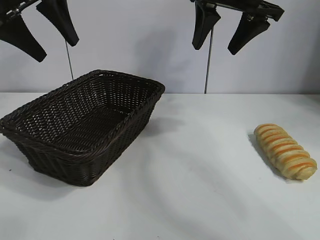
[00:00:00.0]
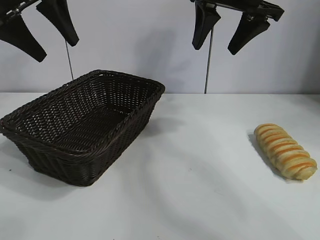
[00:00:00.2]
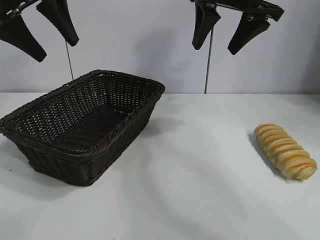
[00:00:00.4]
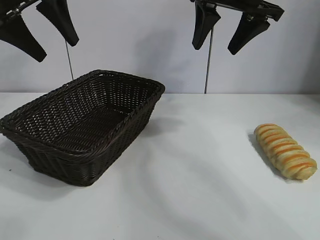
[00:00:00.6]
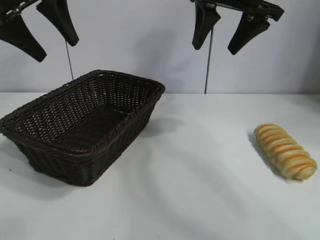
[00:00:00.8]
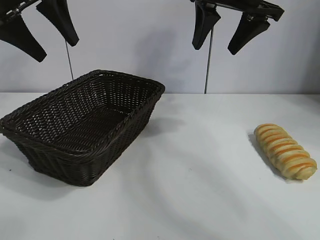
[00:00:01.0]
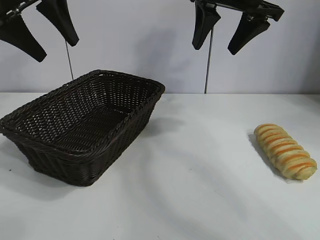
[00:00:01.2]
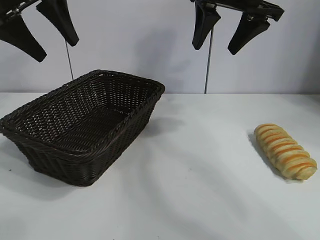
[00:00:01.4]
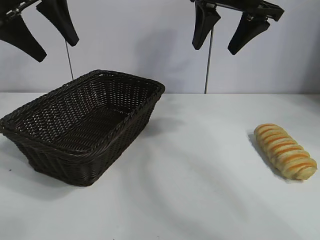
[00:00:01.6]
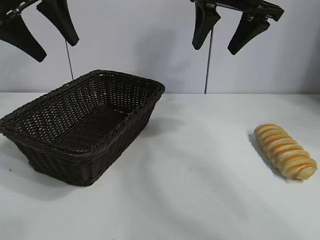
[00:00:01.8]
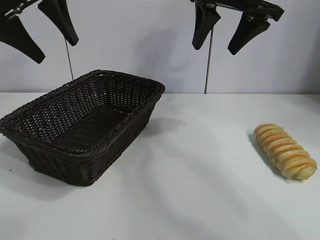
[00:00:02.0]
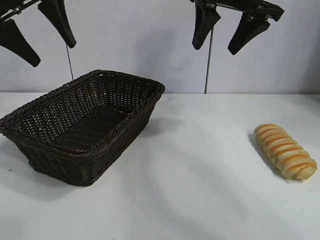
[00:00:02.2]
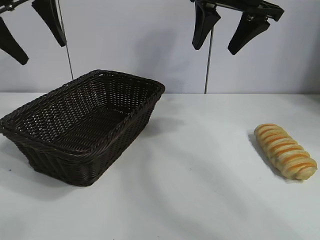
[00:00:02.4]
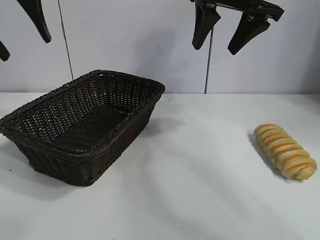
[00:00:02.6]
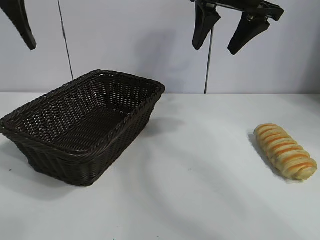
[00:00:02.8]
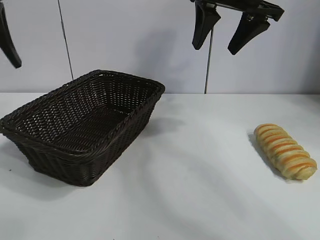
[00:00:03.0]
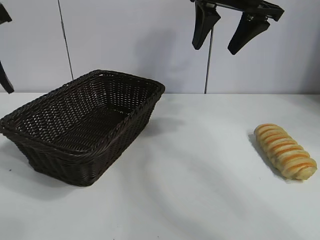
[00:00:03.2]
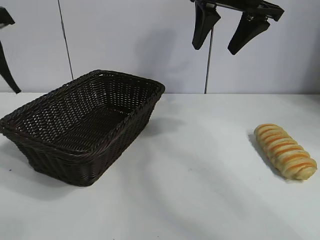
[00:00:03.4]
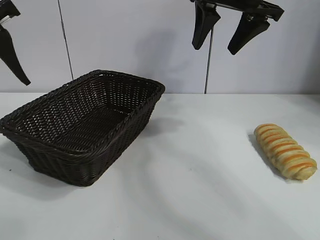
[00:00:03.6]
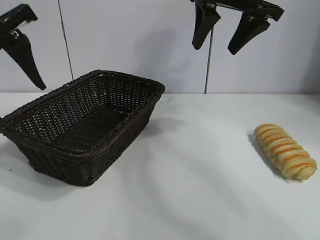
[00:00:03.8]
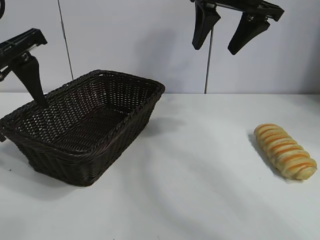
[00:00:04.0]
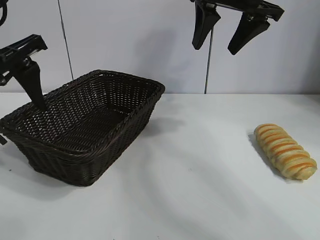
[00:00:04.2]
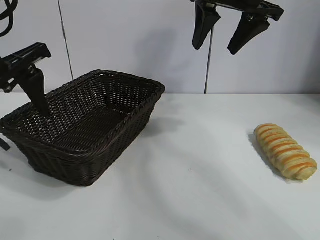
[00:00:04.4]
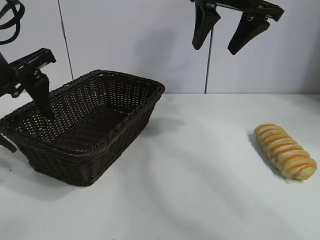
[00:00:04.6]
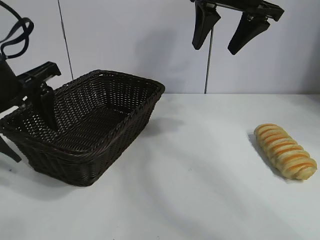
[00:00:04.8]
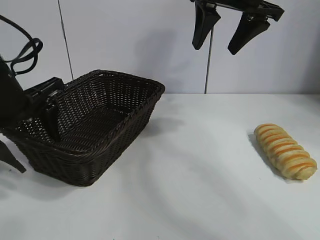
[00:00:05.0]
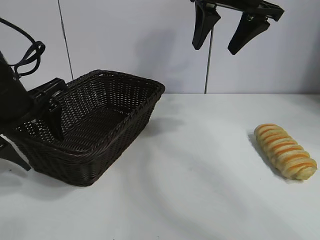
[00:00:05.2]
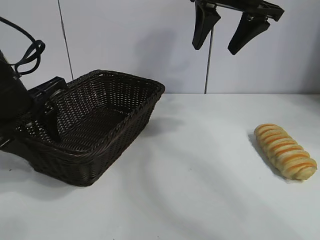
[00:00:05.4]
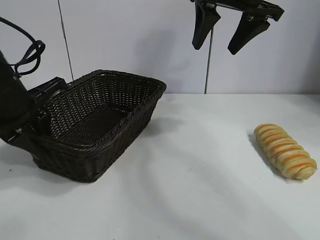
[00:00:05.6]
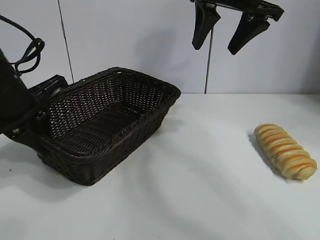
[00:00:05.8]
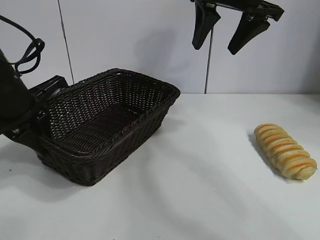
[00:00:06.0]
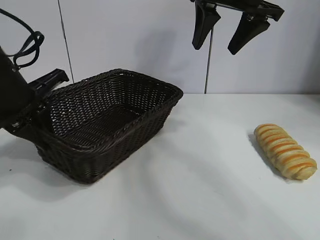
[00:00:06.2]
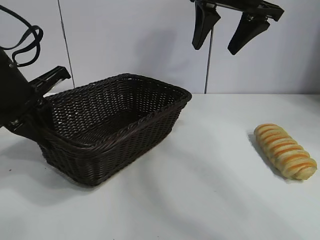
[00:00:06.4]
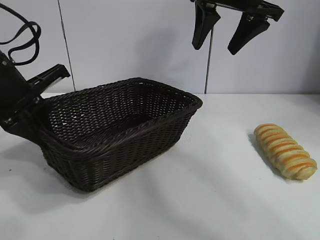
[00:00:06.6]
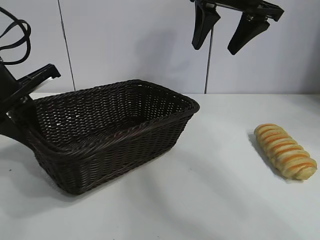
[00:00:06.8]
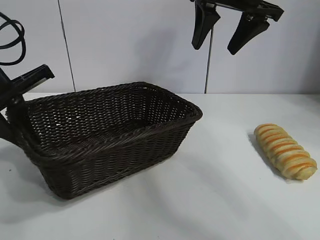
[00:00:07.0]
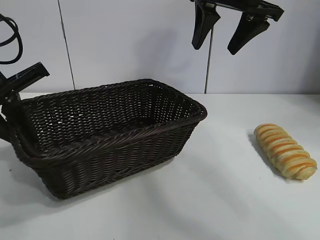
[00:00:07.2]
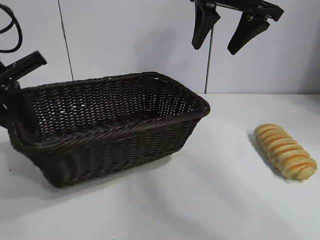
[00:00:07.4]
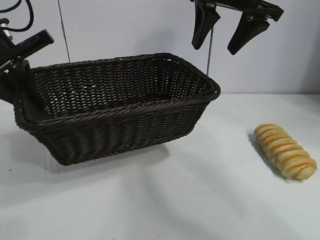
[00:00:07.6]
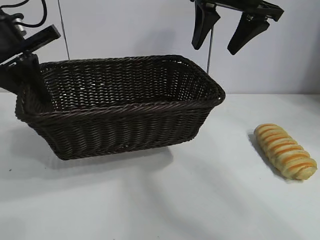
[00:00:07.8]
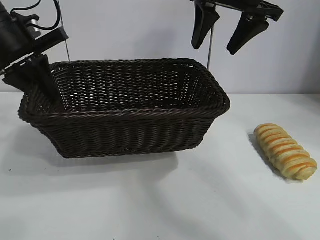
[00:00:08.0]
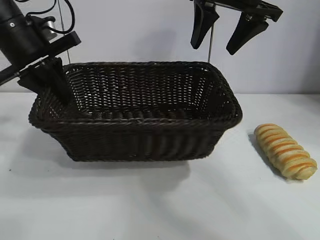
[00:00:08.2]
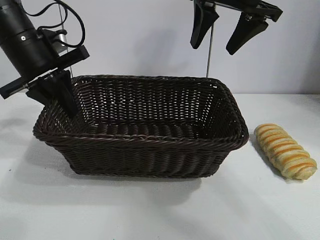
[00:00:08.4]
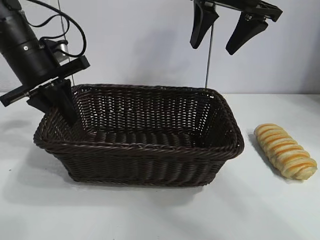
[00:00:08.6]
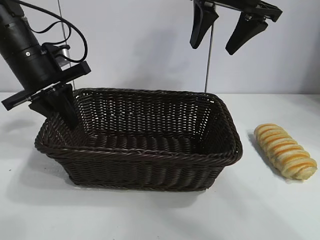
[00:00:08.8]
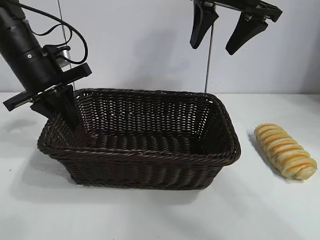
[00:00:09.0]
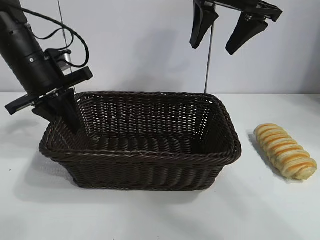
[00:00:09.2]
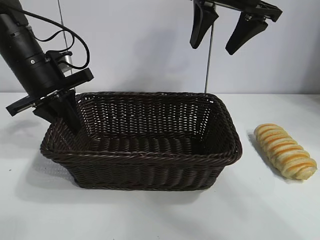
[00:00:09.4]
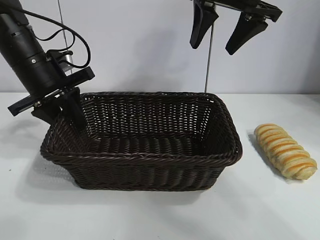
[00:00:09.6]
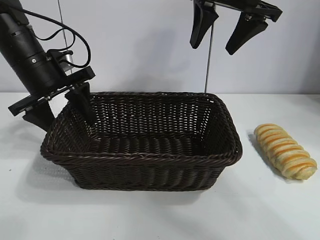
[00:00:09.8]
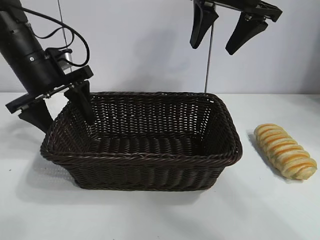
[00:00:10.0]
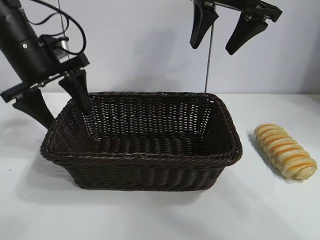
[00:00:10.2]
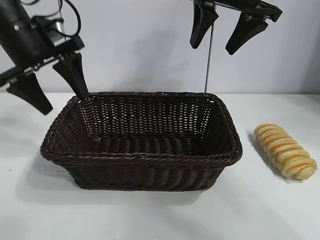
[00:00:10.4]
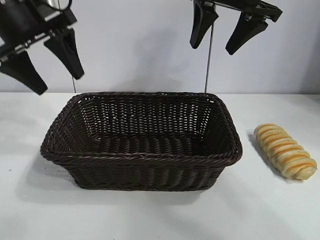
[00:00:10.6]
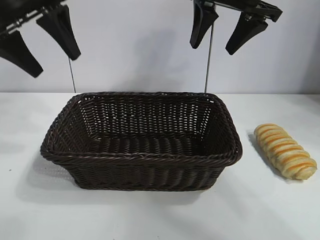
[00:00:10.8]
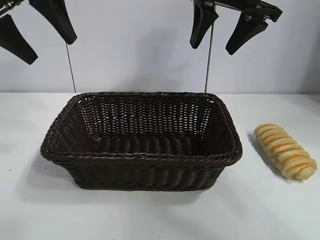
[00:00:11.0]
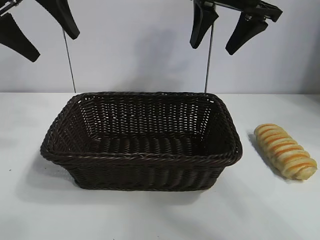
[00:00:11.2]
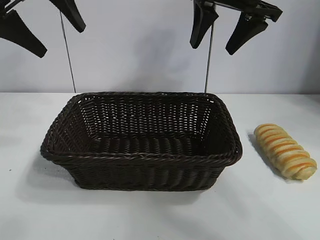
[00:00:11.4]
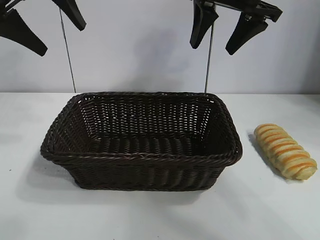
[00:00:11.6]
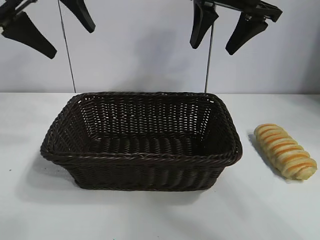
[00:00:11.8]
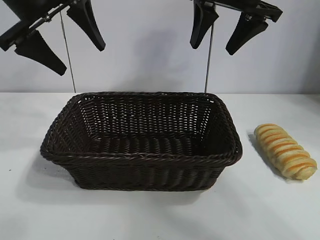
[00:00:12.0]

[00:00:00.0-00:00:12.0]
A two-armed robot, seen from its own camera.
Task of the whole recording: pick up the long bread and put it into the basket.
Step, 00:00:01.8 to 00:00:05.8: Grasp the basket with the left gripper.
Step, 00:00:06.0 to 00:00:09.8: Place the basket in the center of the table with the left gripper.

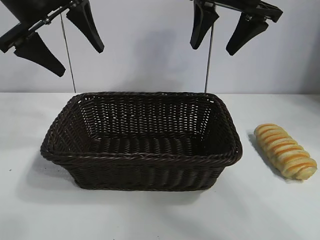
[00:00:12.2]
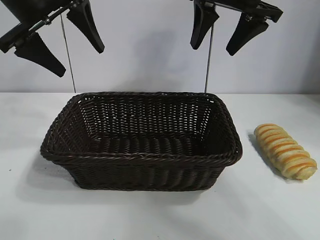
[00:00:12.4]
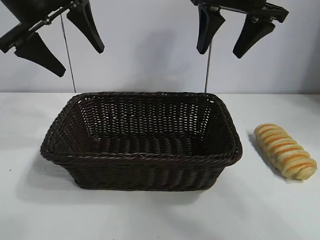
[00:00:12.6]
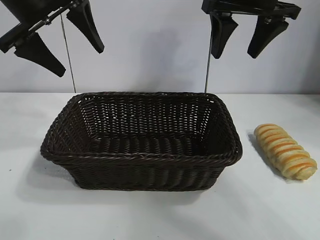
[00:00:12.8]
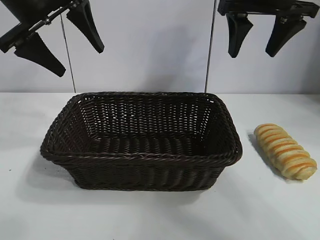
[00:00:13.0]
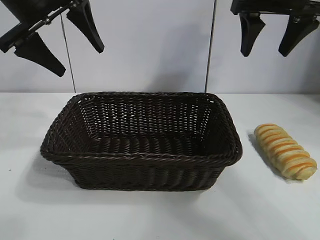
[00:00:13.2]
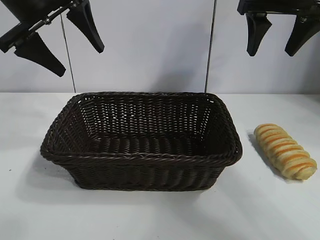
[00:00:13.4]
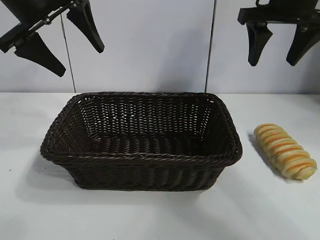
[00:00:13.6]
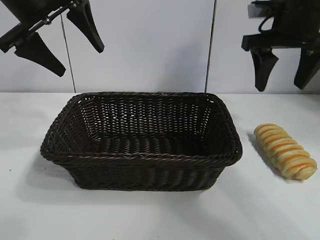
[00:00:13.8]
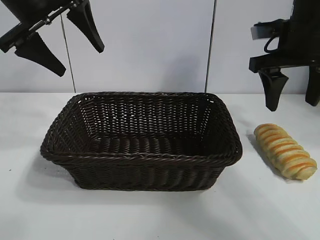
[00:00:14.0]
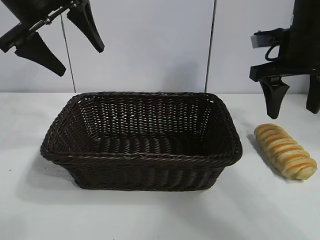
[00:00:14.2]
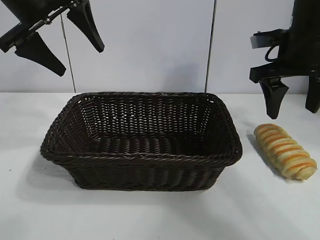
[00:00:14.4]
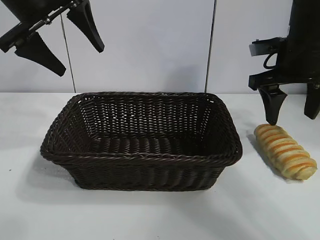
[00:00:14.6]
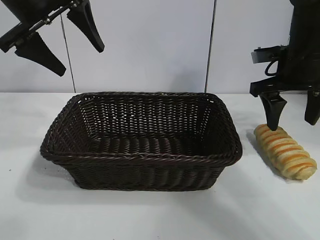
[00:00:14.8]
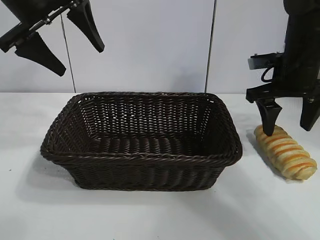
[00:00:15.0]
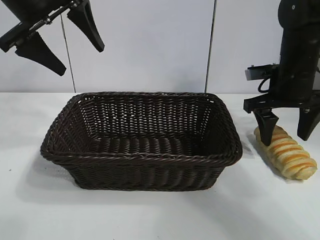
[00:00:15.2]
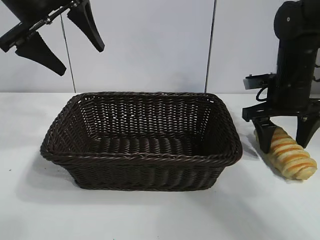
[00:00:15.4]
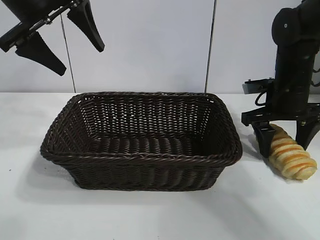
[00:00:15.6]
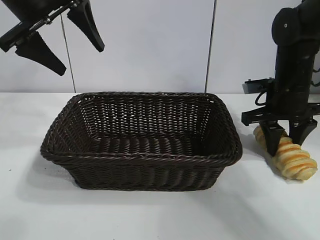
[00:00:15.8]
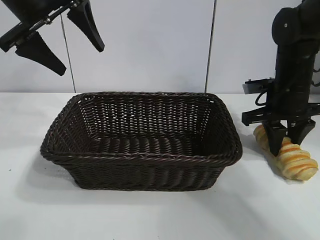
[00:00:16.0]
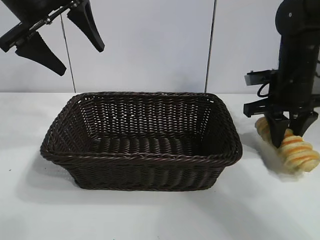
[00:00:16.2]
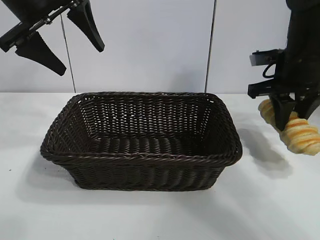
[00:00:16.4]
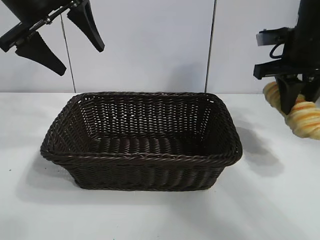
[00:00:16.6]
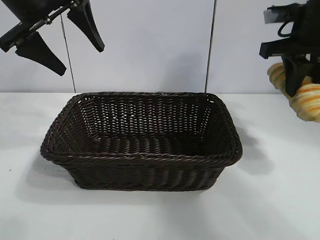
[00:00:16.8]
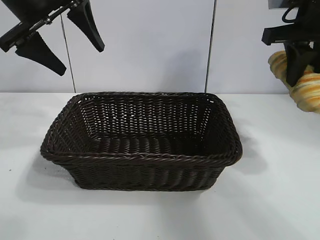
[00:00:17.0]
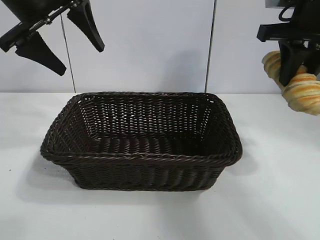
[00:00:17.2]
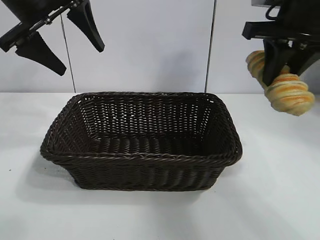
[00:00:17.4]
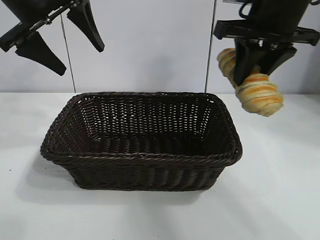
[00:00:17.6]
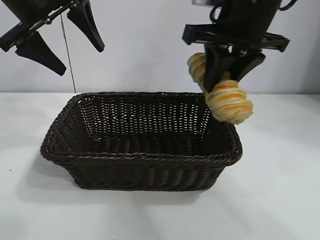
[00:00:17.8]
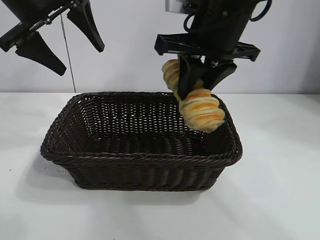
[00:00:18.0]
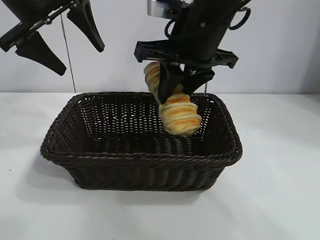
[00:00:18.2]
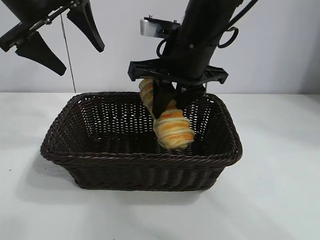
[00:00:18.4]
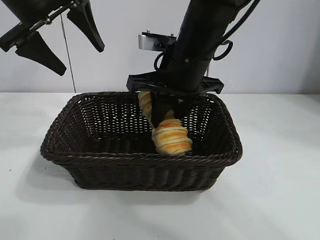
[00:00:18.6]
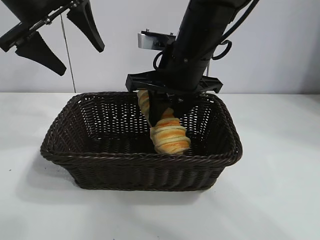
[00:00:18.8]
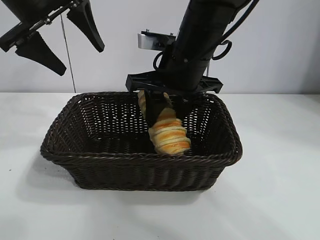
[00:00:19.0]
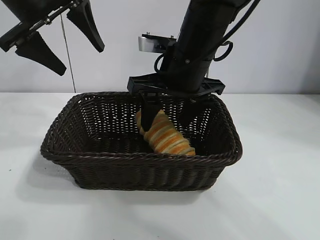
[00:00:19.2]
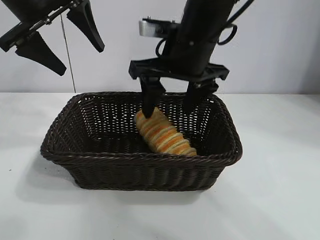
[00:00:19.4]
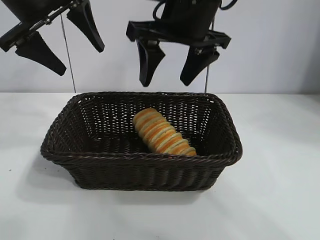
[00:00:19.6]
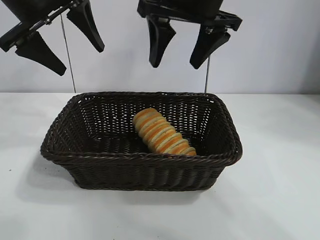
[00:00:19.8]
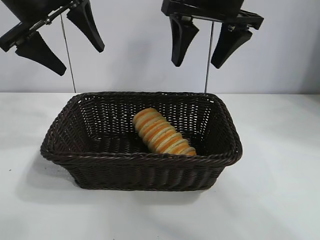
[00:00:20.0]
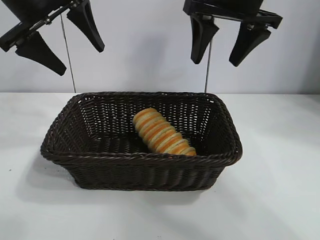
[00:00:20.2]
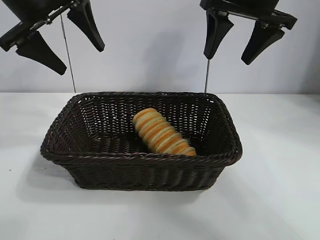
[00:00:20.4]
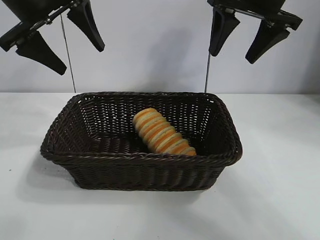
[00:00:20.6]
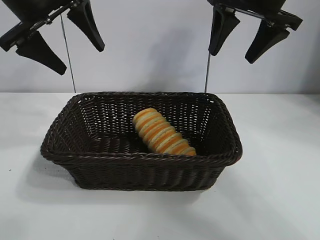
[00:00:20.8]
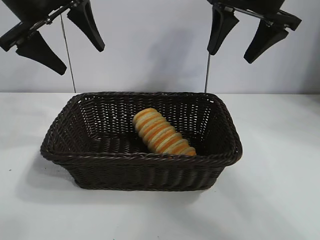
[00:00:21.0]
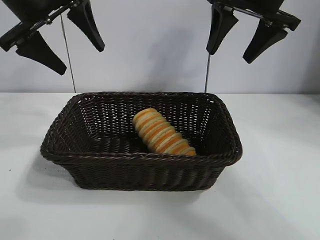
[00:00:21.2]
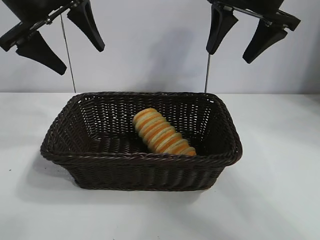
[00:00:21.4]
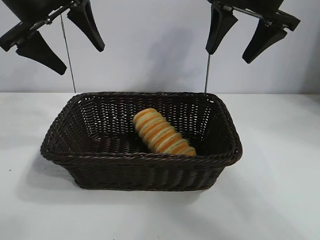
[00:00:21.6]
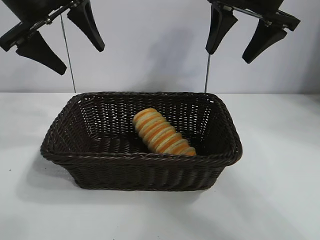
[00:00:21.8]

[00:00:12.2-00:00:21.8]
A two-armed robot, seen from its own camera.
Task of the whole recording: pick up the long bread and put it into the basket.
Step, 00:00:12.2 to 00:00:16.0: Grasp the long bread with right gripper.
Step, 00:00:16.2 to 00:00:19.4: Place the long bread in the basket with right gripper.
